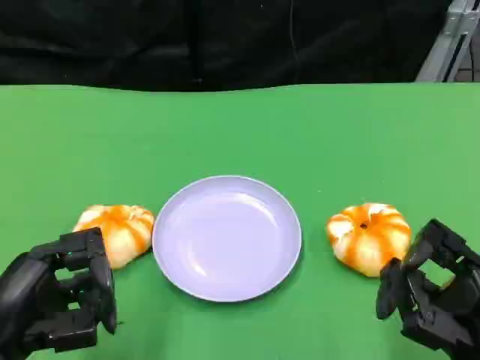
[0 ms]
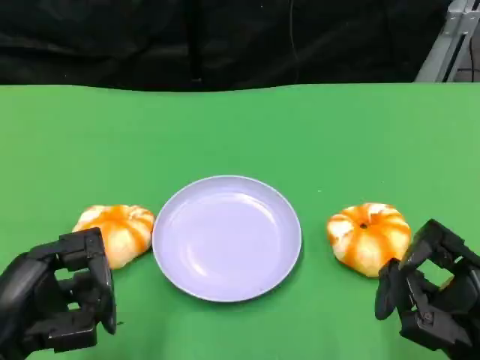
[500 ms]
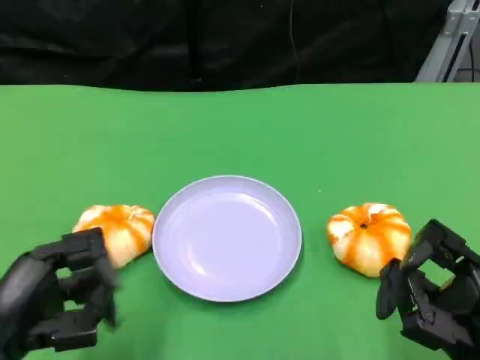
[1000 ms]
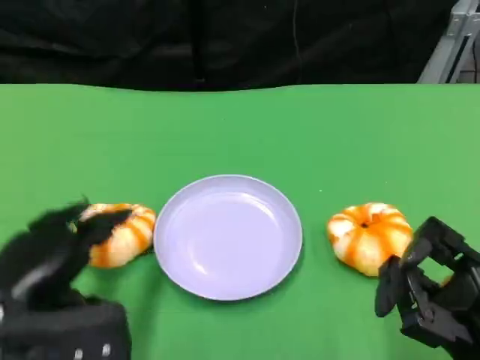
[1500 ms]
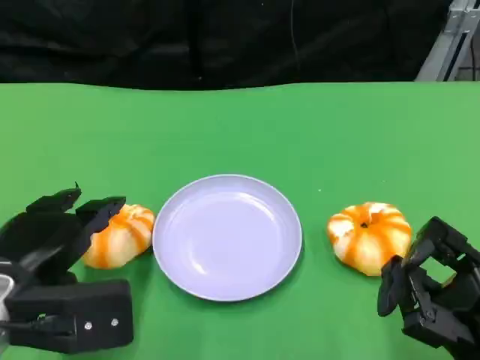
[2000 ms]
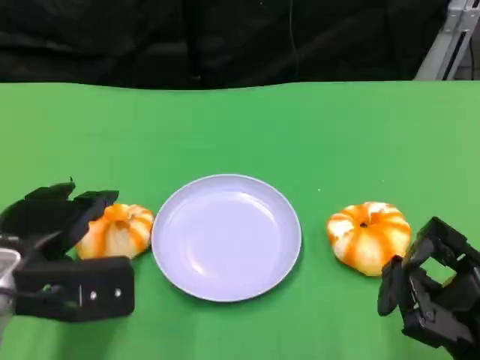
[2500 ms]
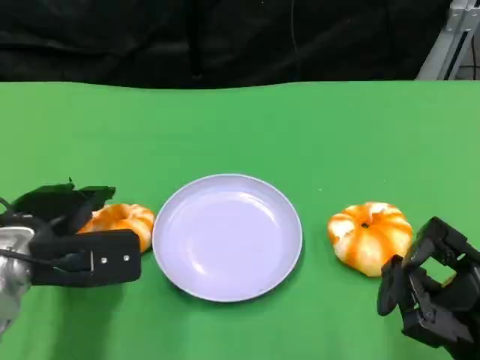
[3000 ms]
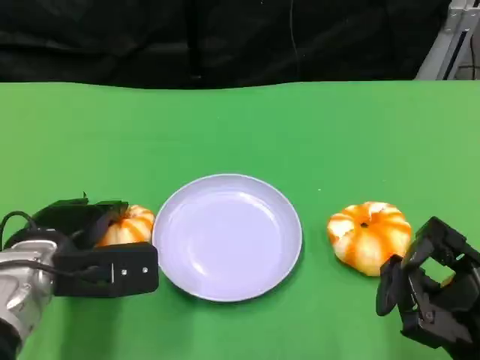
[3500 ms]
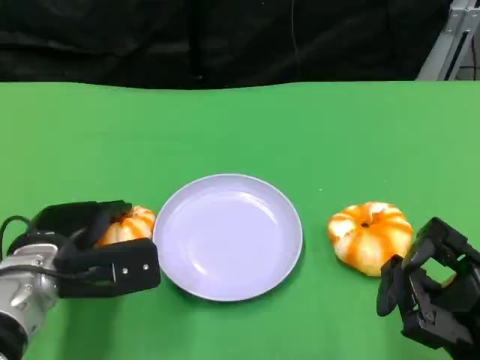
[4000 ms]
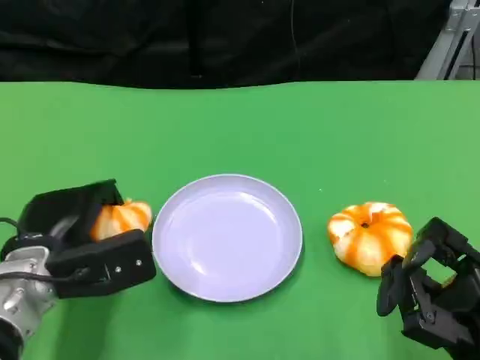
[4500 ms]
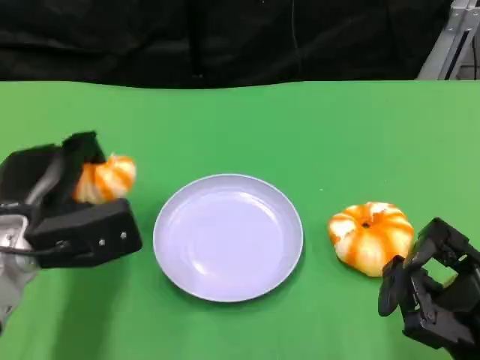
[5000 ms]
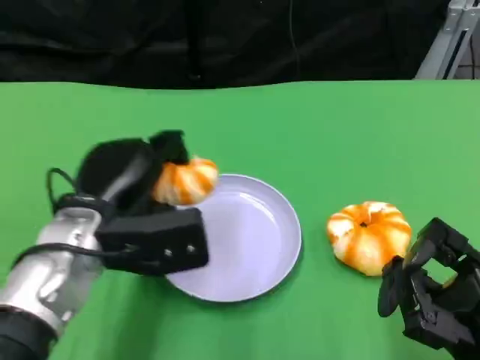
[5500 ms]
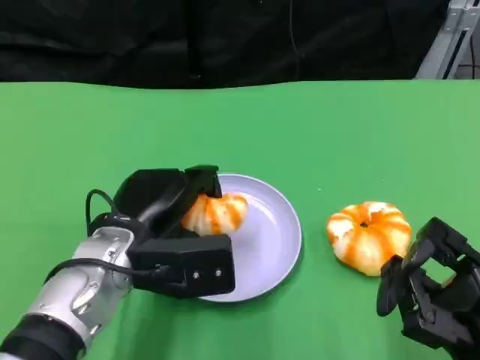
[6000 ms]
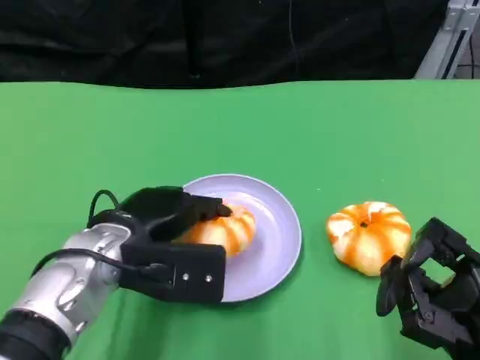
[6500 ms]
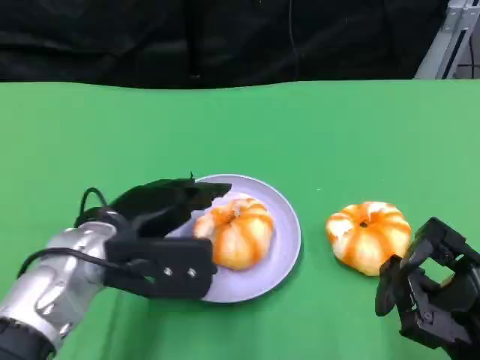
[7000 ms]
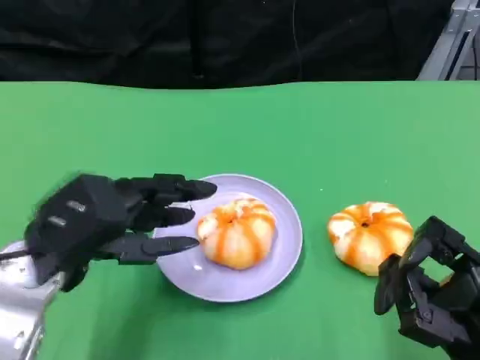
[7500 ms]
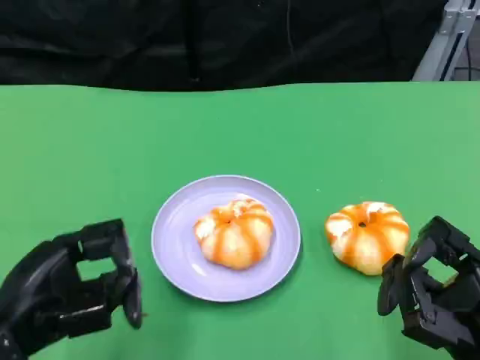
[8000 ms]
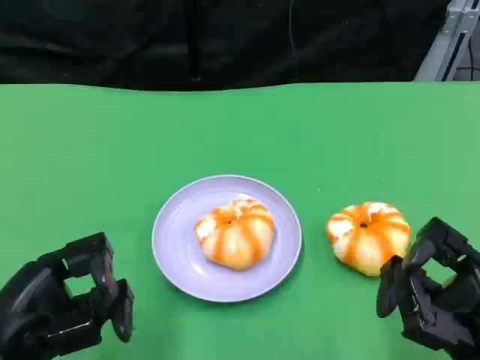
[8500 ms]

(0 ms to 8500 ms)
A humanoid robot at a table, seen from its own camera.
Task of the whole recording: Grasp the bread from the table and place it into the plate.
0 ms - 2000 ms: The left hand heads forward, covering about 5 cm.
2000 ms - 4000 ms: The left hand is displaced forward and downward by some 10 cm.
4000 ms - 6500 ms: The left hand shifts about 5 cm to the right.
6500 ms - 8500 ms: The left hand shifts about 15 cm backward and to the left.

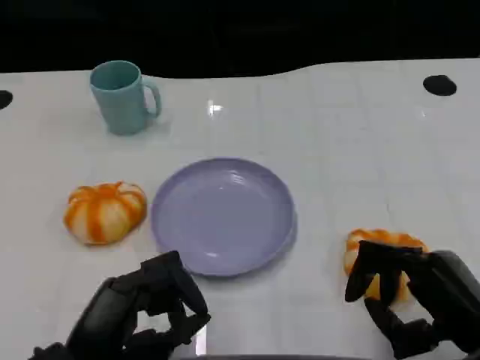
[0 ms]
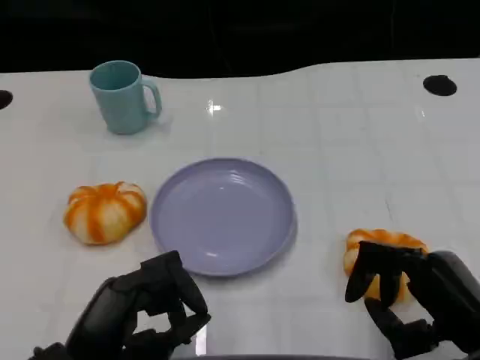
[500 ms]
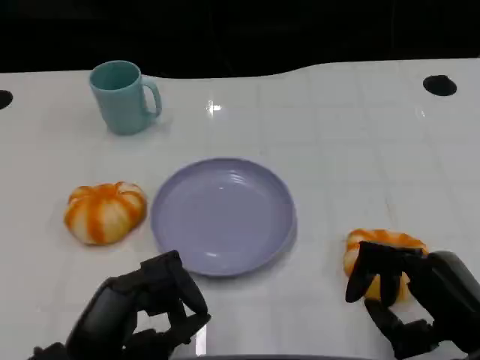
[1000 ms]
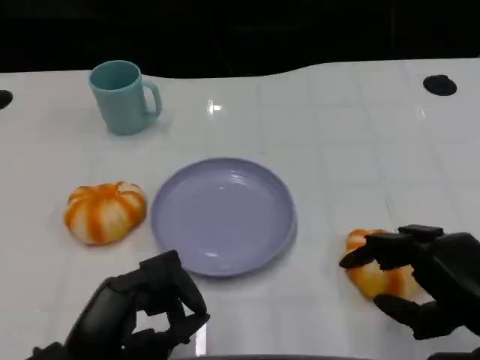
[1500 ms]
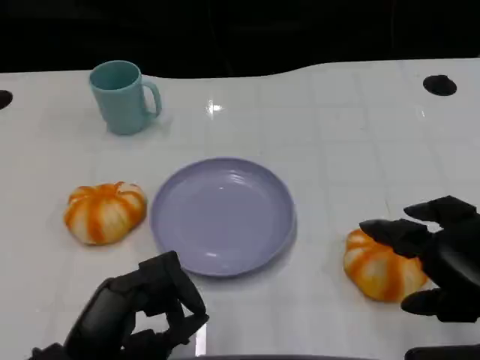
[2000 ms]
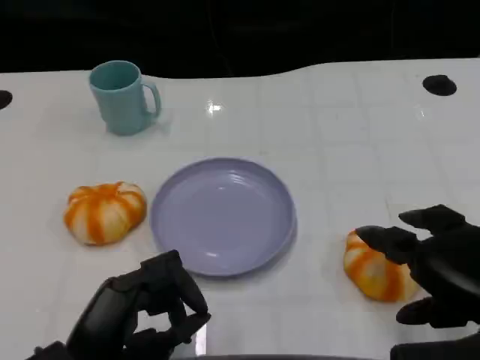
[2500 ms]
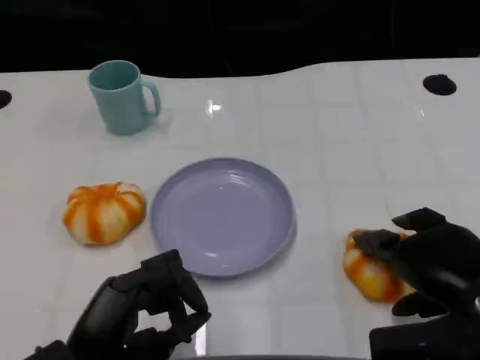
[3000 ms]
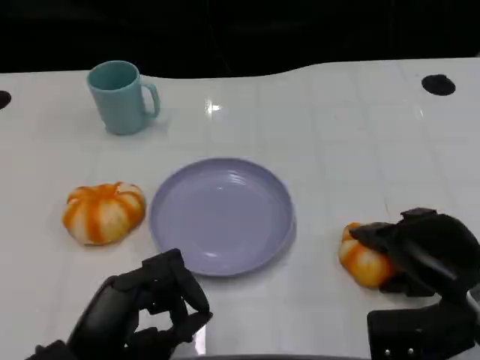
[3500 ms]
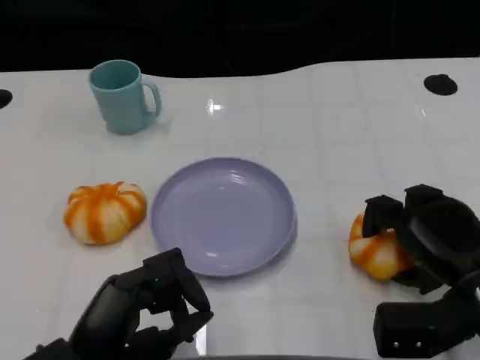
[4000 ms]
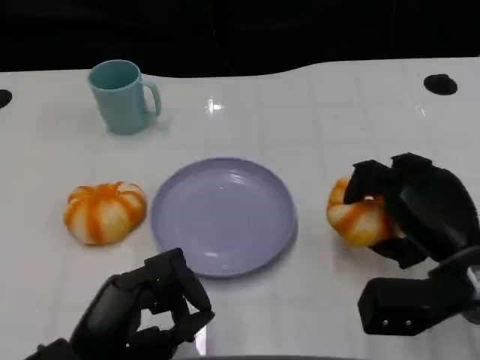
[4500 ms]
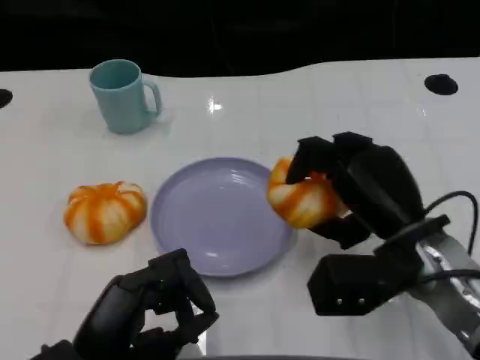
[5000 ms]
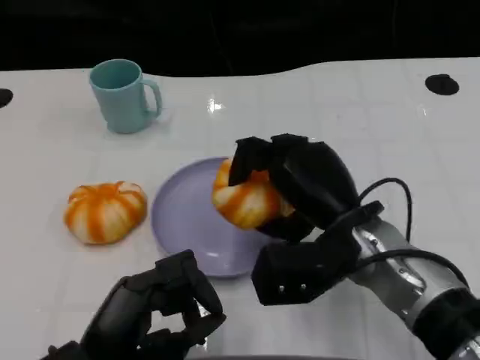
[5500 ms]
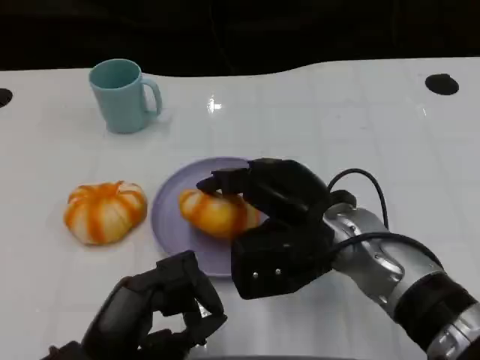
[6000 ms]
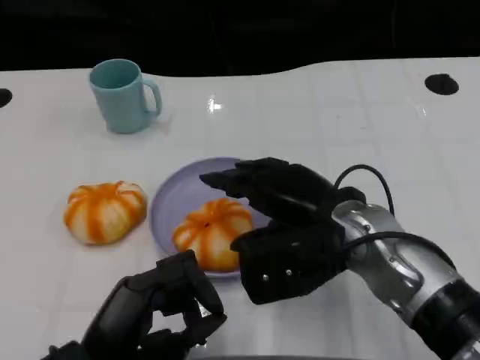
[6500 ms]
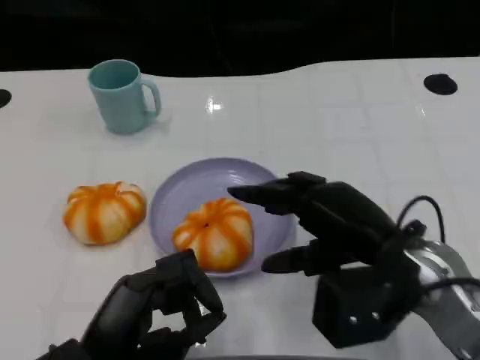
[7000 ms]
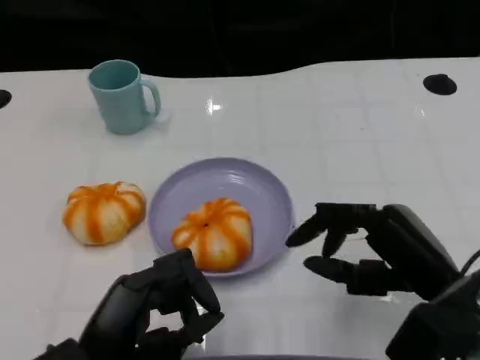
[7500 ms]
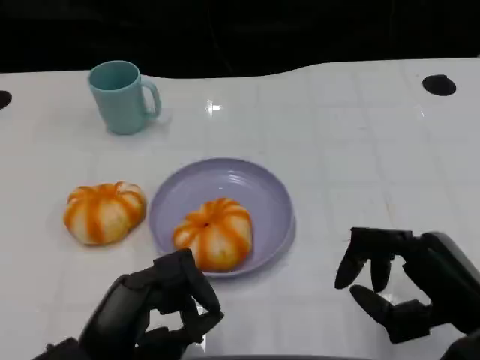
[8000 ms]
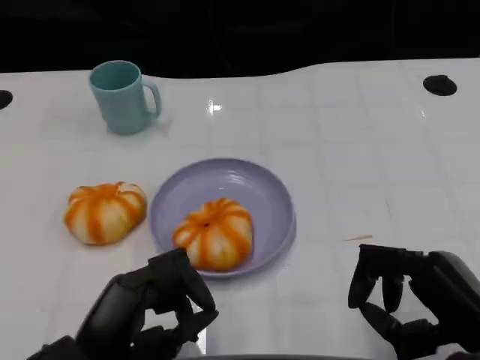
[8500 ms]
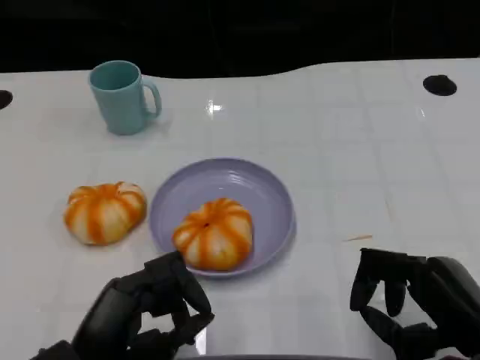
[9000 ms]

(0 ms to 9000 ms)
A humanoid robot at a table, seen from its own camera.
Task of the whole recording: Grasp the bread from the table and place it into the plate.
0 ms - 2000 ms: The right hand shifts about 5 cm upward.
2000 ms - 4500 ms: The right hand shifts approximately 10 cm forward and downward.
4500 ms - 7000 ms: The right hand moves to the left, approximately 5 cm.
7000 ms - 9000 ms: The right hand goes approximately 10 cm backward and to the right.

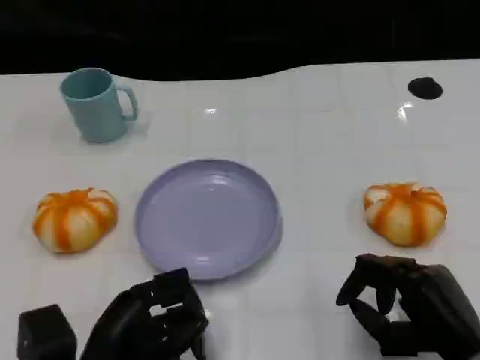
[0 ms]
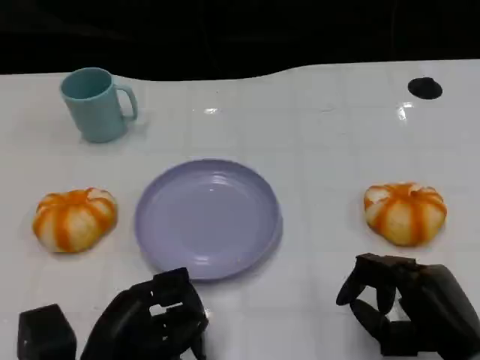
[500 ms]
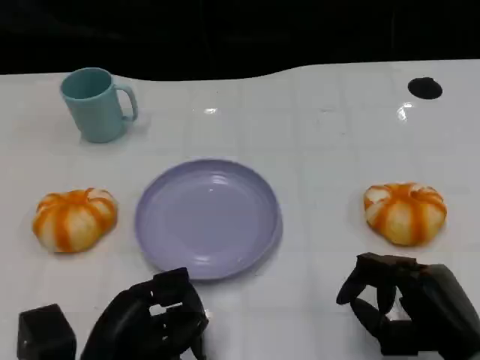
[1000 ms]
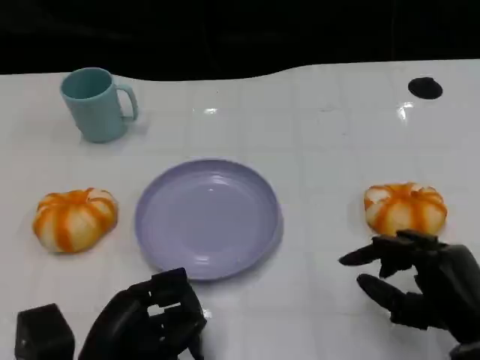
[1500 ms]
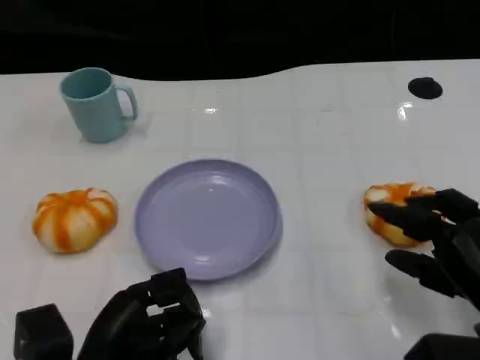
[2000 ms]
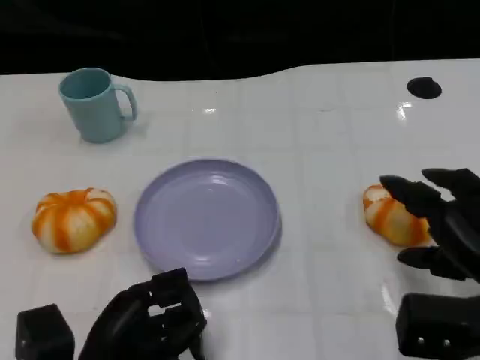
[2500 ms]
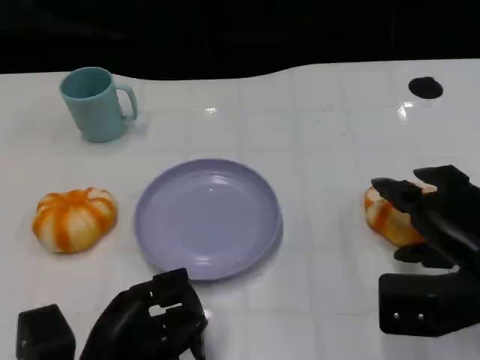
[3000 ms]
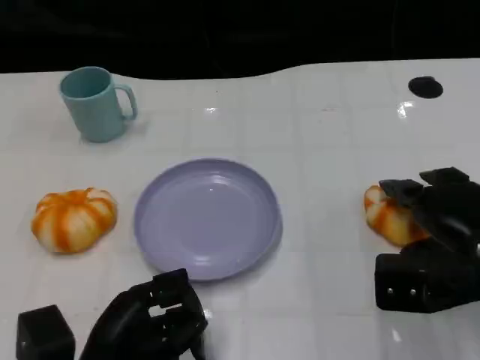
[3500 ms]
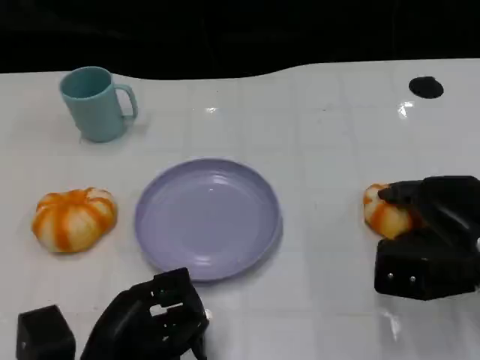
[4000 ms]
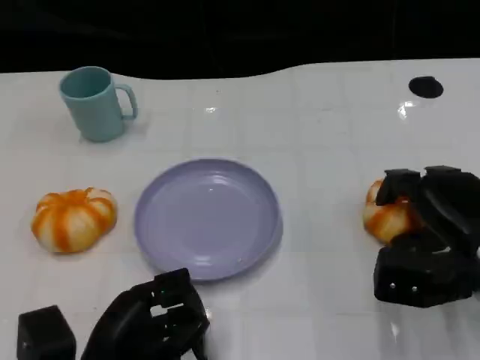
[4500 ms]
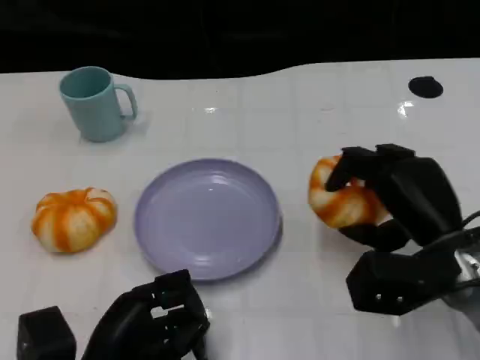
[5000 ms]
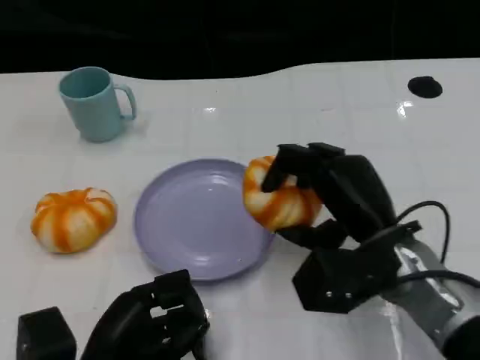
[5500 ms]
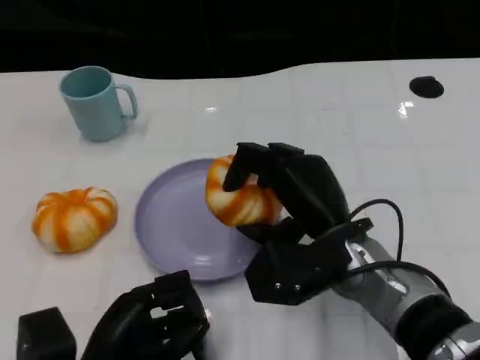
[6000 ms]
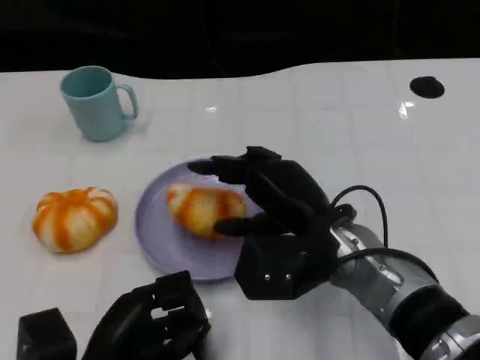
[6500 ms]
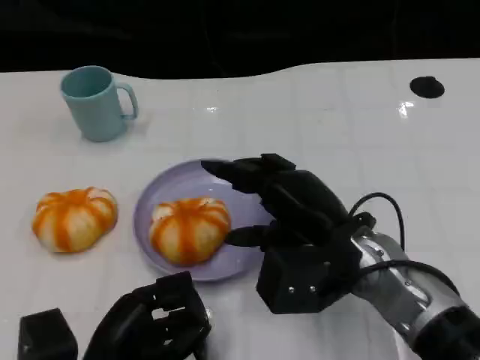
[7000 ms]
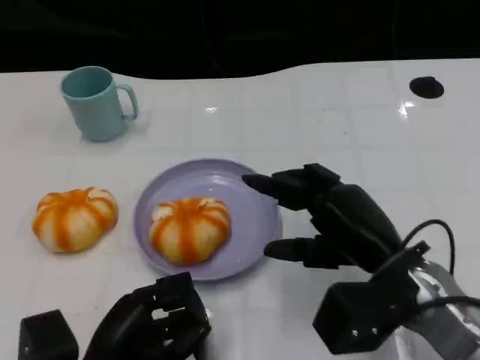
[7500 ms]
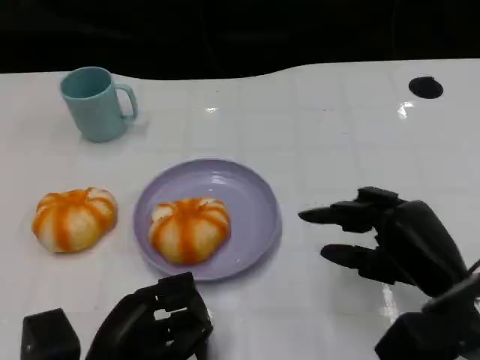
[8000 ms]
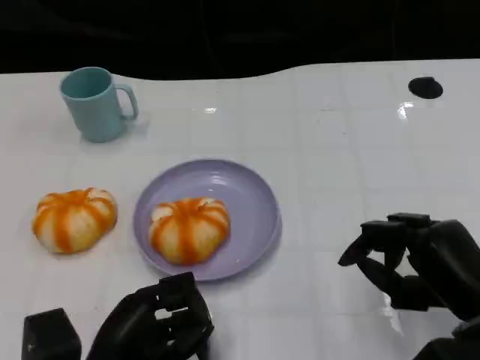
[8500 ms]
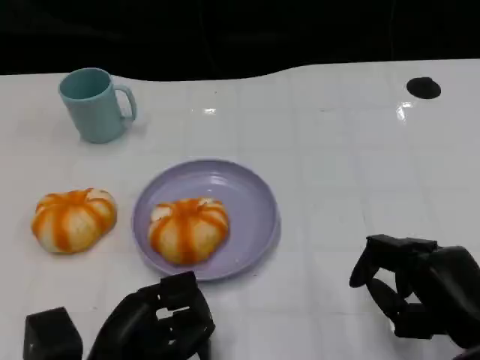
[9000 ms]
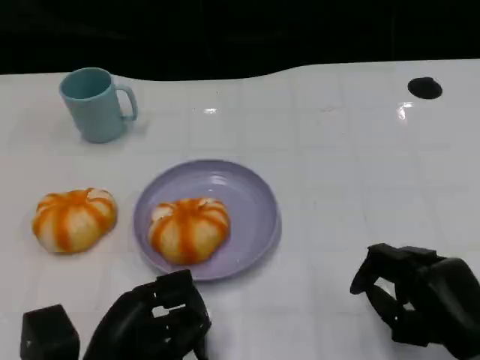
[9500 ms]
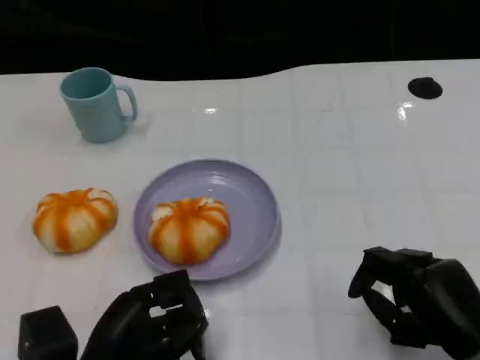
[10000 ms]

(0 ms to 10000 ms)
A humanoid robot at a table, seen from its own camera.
Task of the whole recording: Grasp the bread from the table and place it into the plate.
0 ms - 2000 ms: The right hand changes place by about 5 cm.
2000 ms - 4000 ms: The right hand shifts roughly 10 cm forward.
4000 ms - 6000 ms: The right hand heads to the left, covering roughly 15 cm.
6000 ms - 8000 ms: The right hand moves to the right, about 10 cm.
8000 ms - 10000 ms: The right hand shifts by approximately 5 cm.
